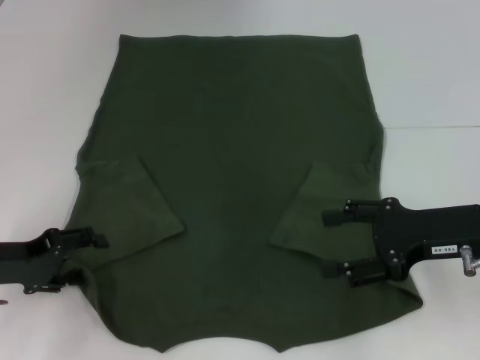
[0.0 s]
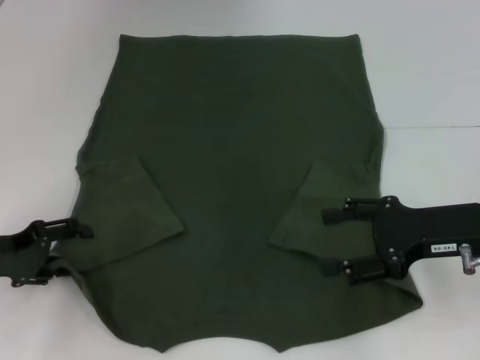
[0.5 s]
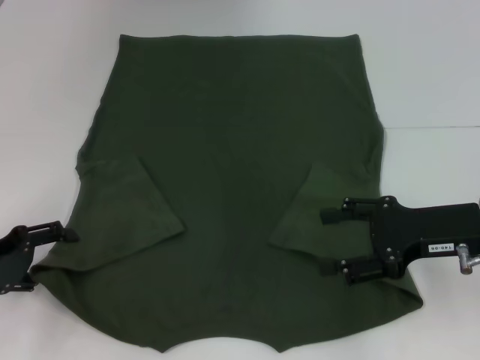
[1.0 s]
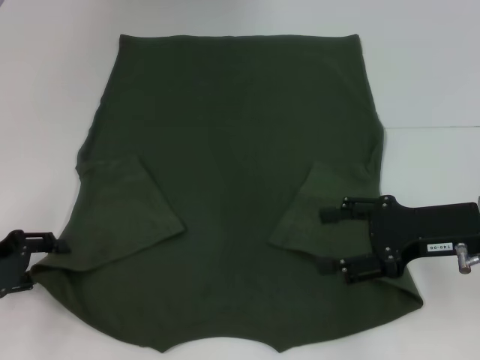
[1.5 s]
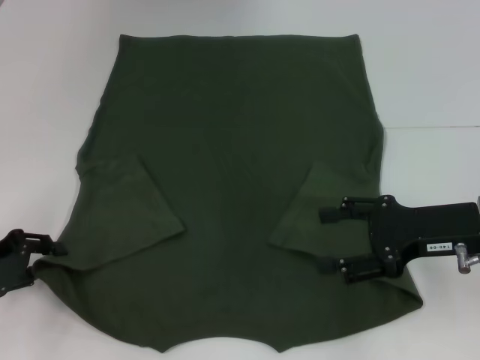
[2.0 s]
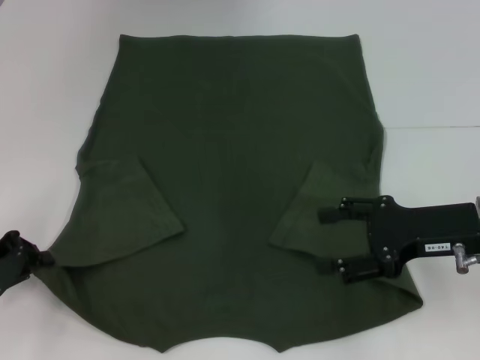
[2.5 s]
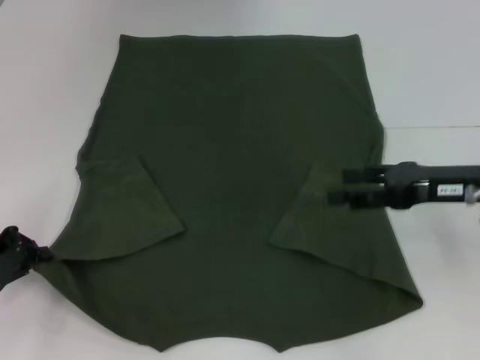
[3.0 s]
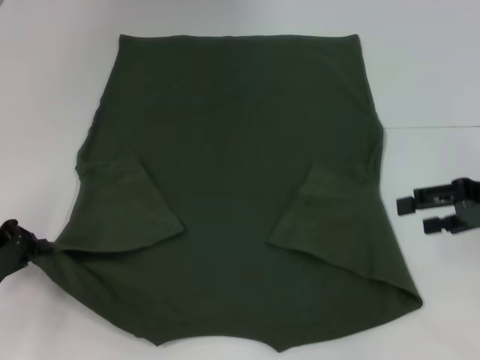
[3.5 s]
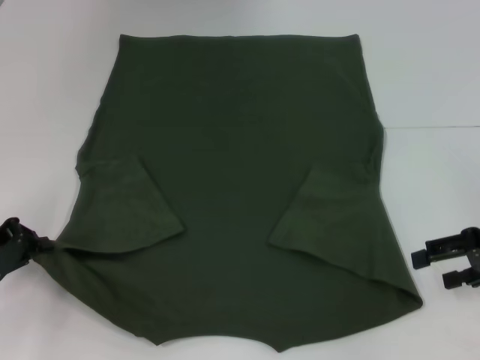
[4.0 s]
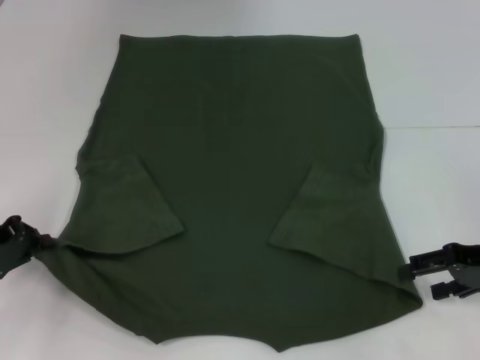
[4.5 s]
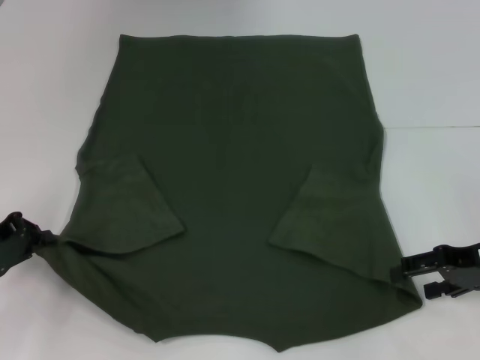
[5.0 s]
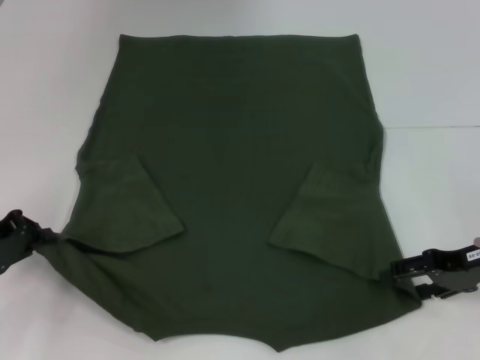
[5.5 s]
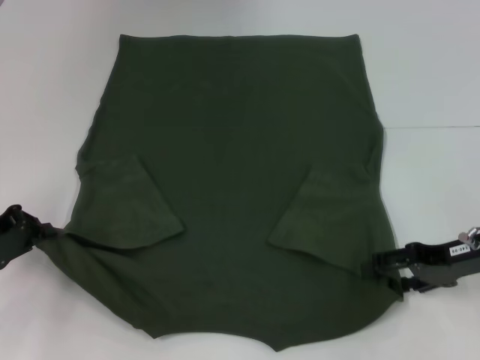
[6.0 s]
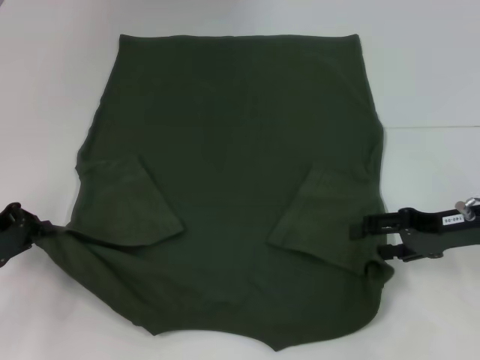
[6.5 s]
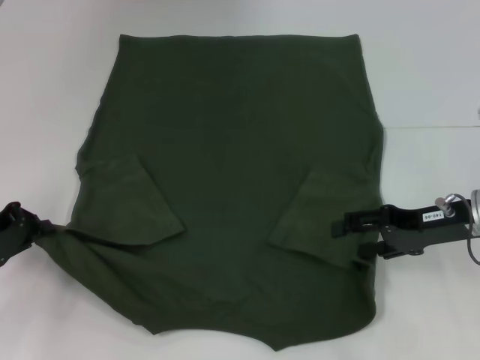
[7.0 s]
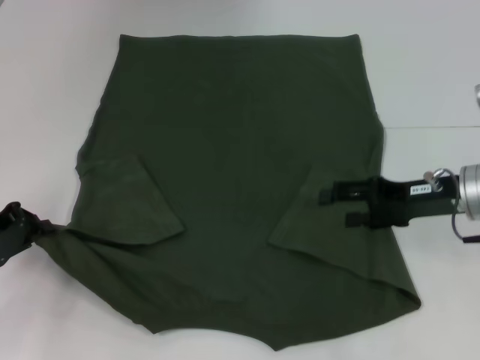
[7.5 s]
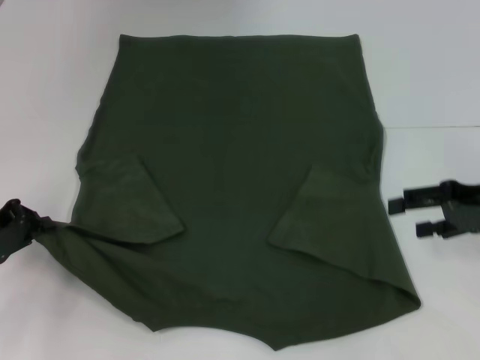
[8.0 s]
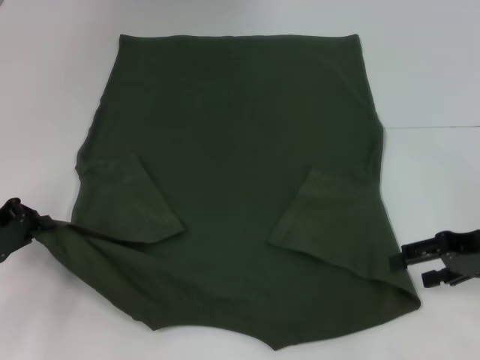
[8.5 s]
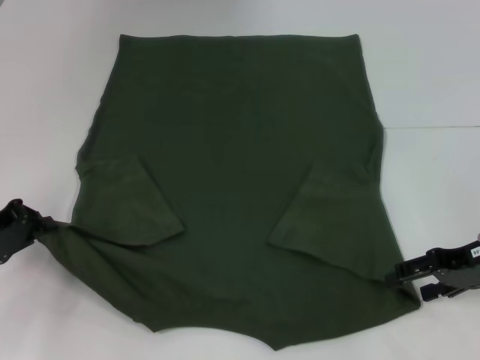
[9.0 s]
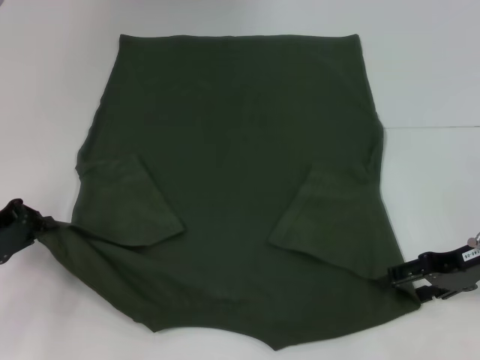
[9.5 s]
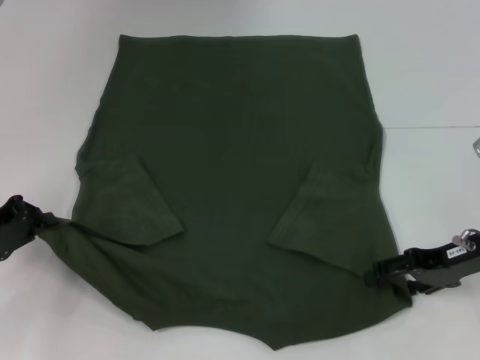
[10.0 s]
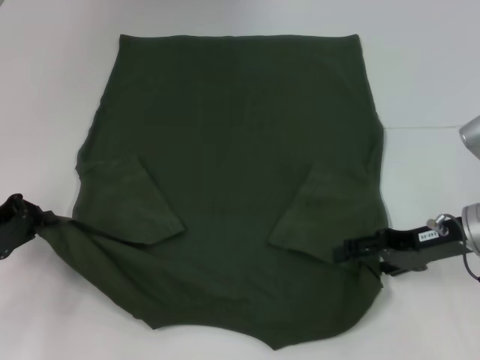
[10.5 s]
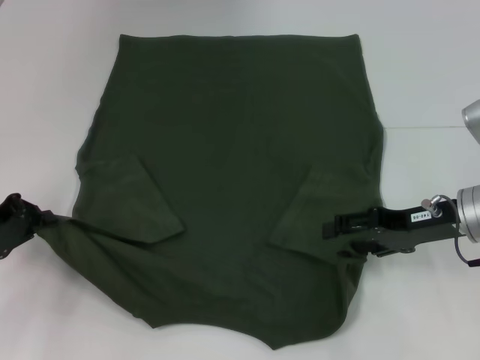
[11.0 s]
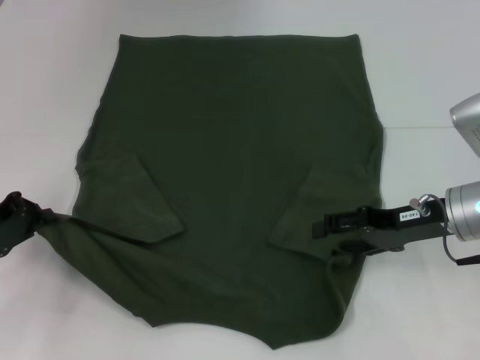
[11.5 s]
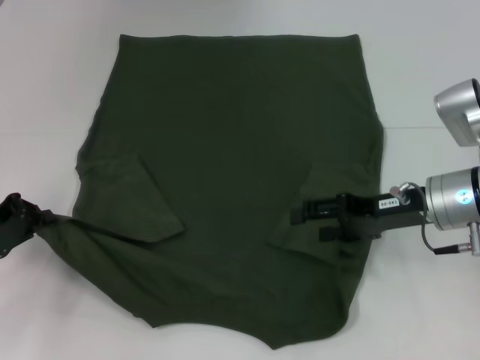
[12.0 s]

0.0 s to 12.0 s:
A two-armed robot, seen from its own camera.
Step, 0.0 to 2.5 s: Grab the bottom left corner with your left hand.
0.0 to 2.0 s: The left gripper closes.
2.0 to 4.0 s: The left gripper closes up; the right gripper is displaced to the right by roughly 10 cm.
4.0 to 6.0 s: The right gripper shifts by about 5 cm.
6.0 to 8.0 s: The right gripper moves about 5 cm.
8.0 to 10.0 s: The right gripper shifts by about 5 cm.
10.0 to 12.0 s: The right gripper moves to the left, roughly 5 cm.

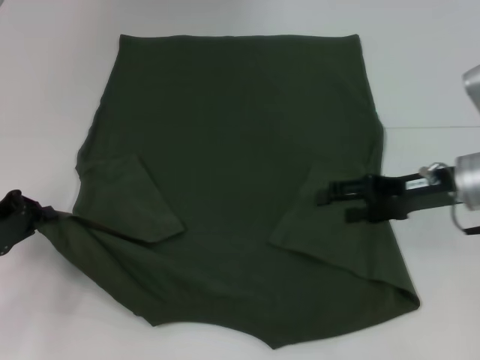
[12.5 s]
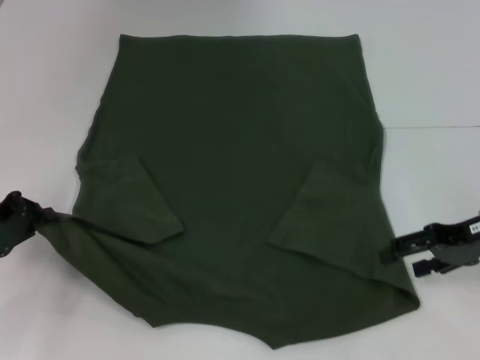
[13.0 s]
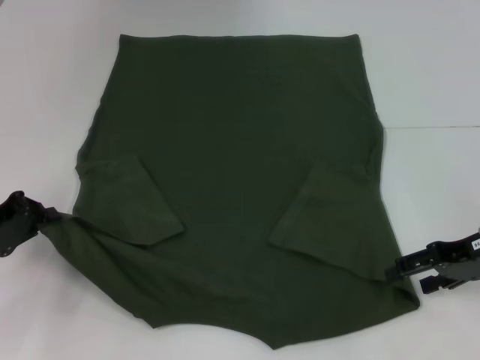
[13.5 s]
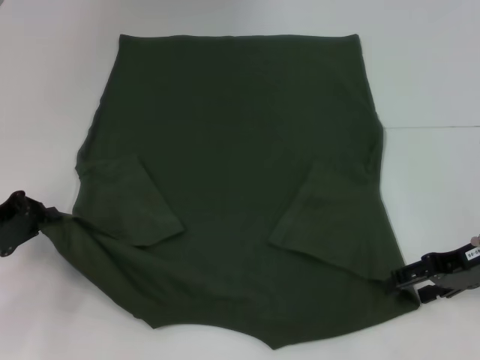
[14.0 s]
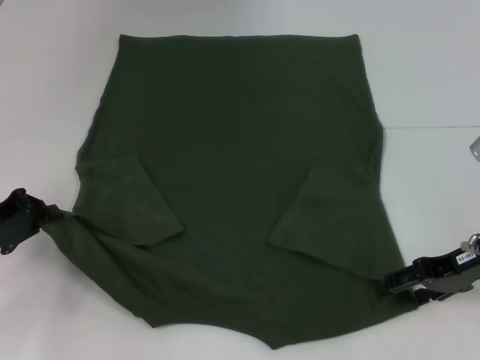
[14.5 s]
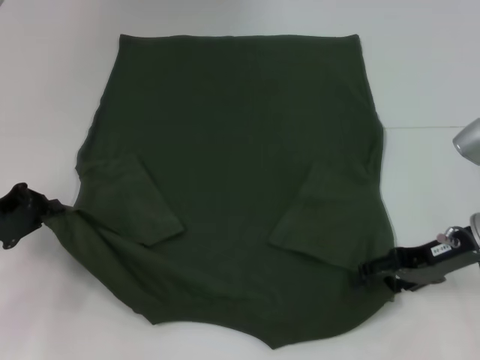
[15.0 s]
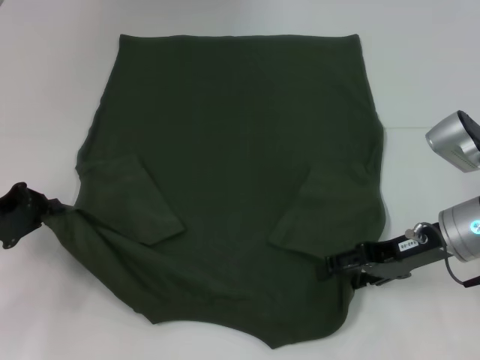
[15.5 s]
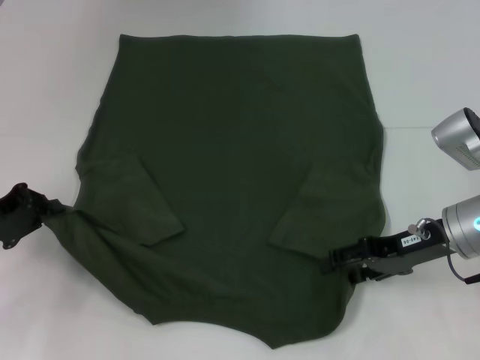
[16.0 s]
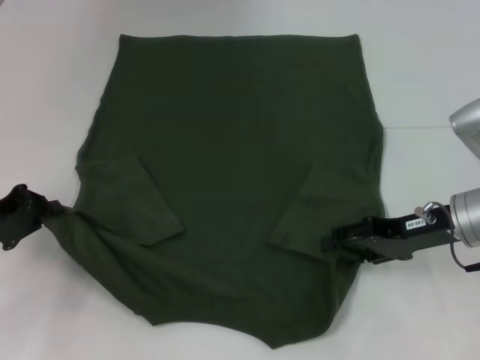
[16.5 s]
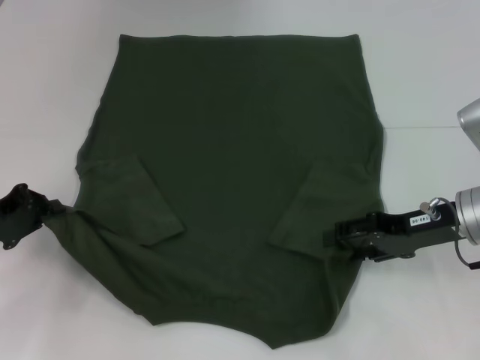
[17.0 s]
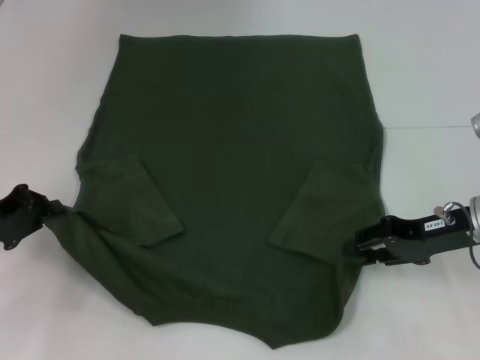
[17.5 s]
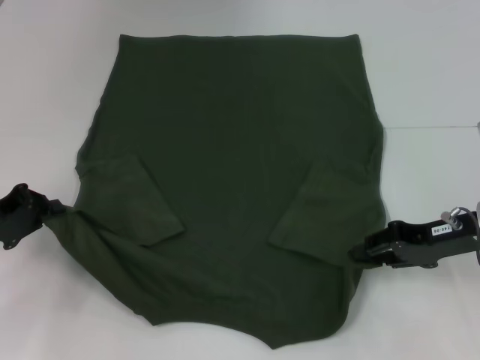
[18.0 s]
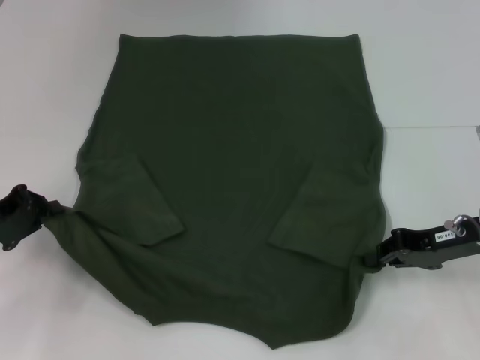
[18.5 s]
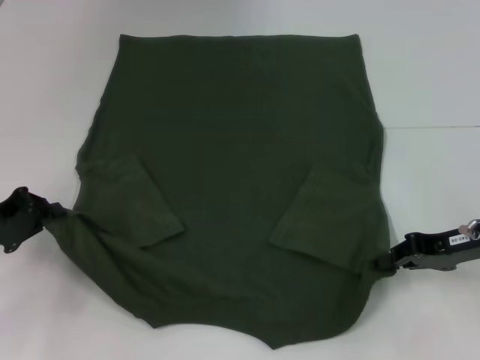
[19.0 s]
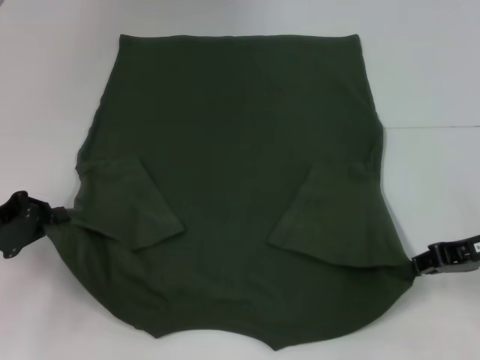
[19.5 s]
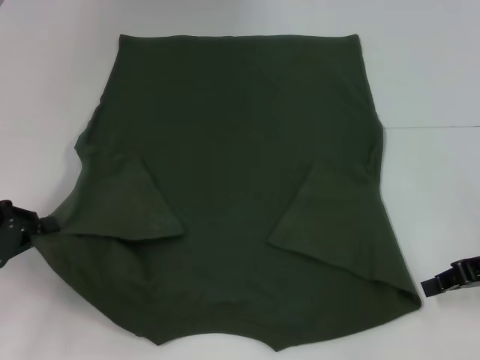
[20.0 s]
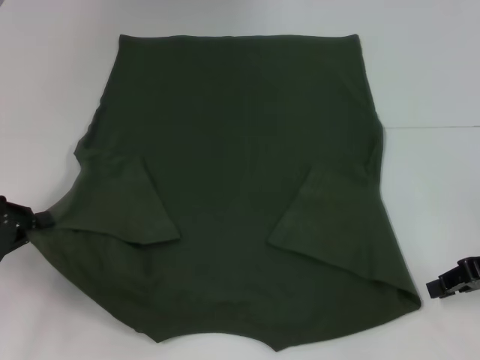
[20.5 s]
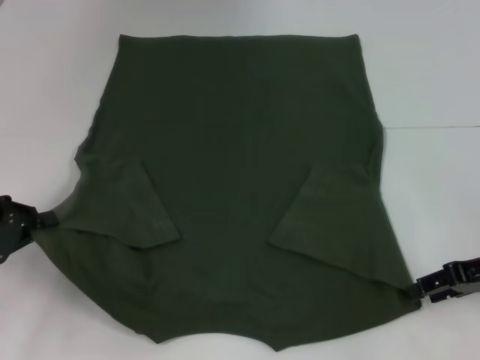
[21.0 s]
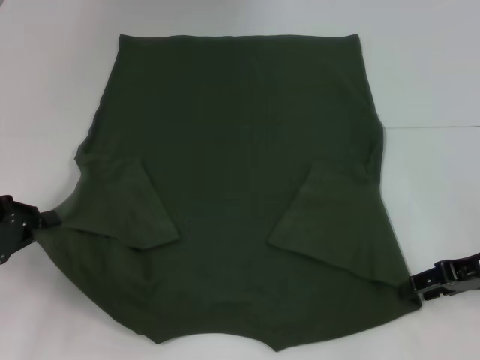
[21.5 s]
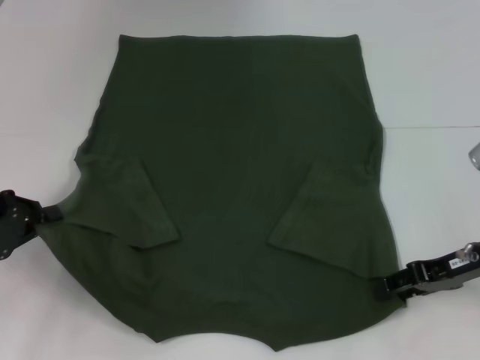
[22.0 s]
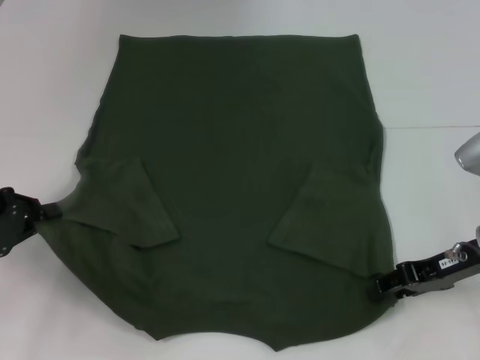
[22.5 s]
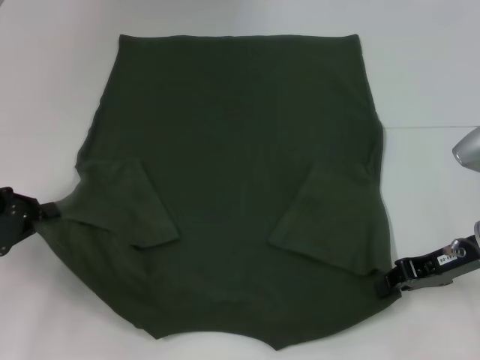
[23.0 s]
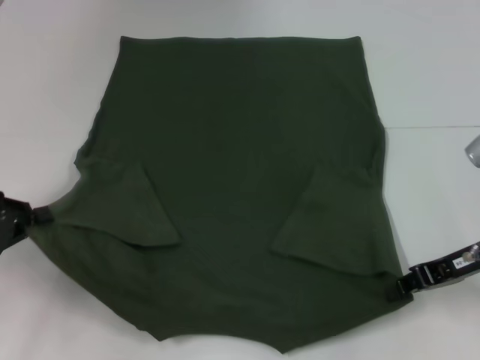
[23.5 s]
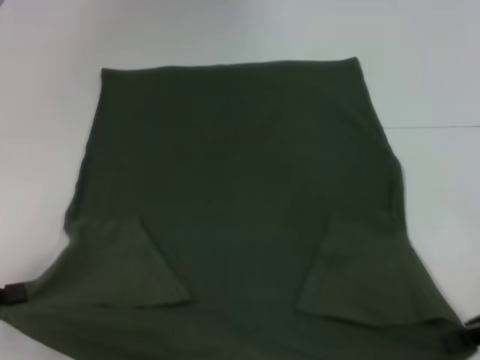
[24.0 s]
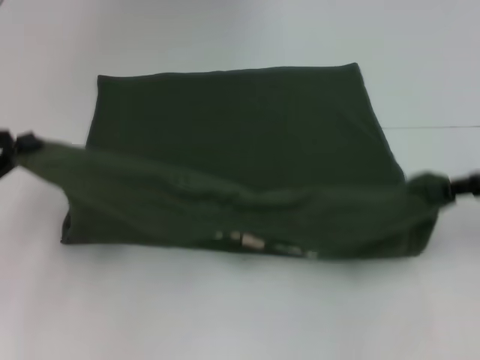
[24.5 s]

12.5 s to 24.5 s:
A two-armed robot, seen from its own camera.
Step, 12.5 to 23.0 s: Grab the bottom right corner with your right hand.
12.5 to 14.5 s: The right gripper ends up some 5 cm from where it was.
14.5 to 16.5 s: There are only small adjustments of the grippers.
16.5 to 18.5 s: The right gripper closes up.
18.5 to 20.5 s: The right gripper moves to the right, roughly 5 cm.
20.5 to 22.5 s: The right gripper travels to the left by roughly 5 cm, and opens up.
22.5 to 24.5 s: The right gripper shifts some 10 cm upward and to the right, and closes. Meanwhile the left gripper moves approximately 5 cm backward and comes back.

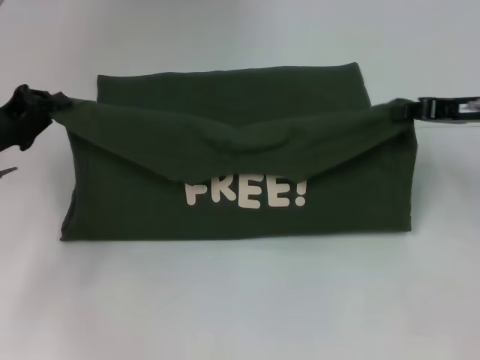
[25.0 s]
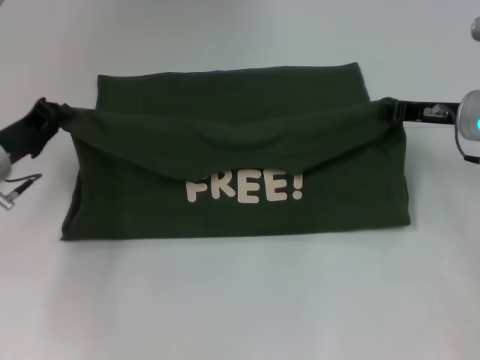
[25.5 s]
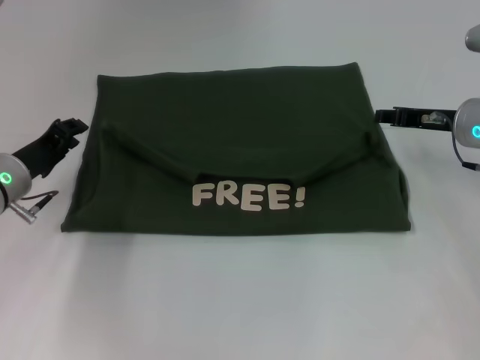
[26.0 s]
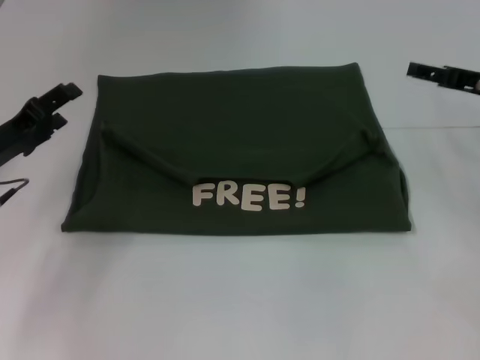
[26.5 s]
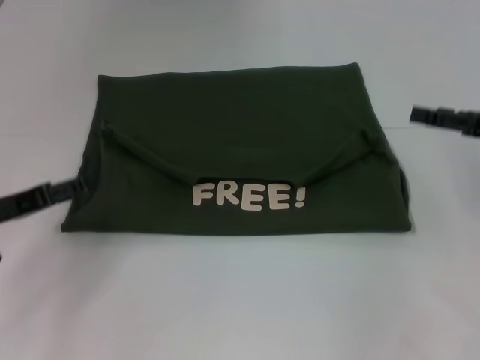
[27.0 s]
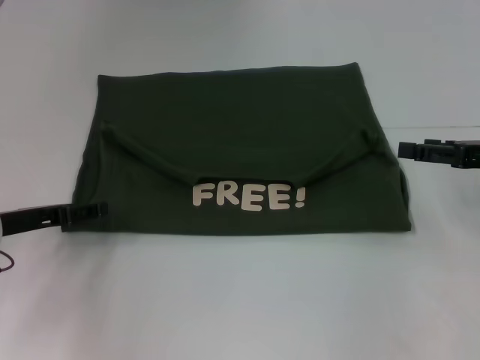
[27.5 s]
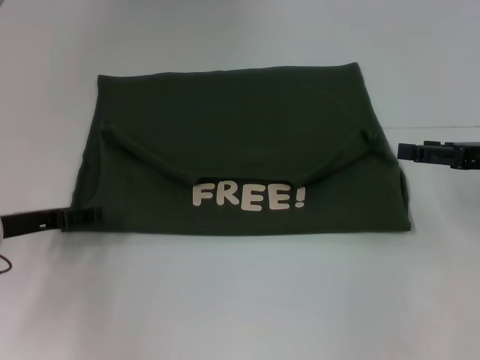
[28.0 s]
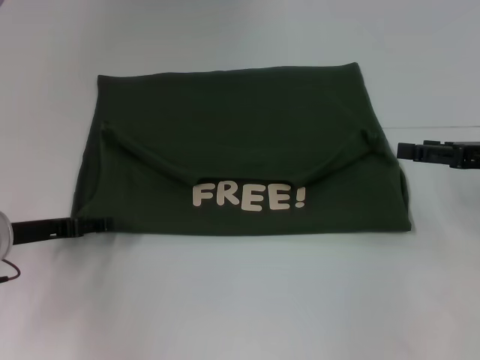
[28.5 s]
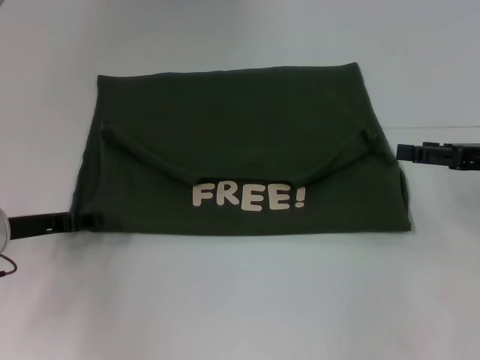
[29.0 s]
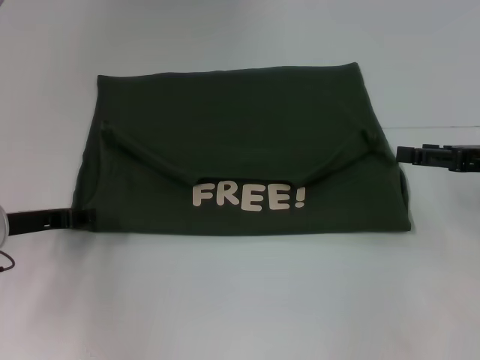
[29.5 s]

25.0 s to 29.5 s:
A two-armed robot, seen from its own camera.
25.0 to 27.0 s: Both grippers move backward, about 5 cm. The left gripper opens its fingers. Meanwhile the right gripper opens.
27.0 to 29.5 s: The left gripper closes.
